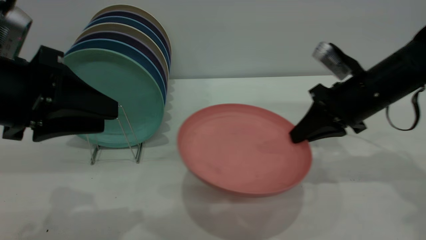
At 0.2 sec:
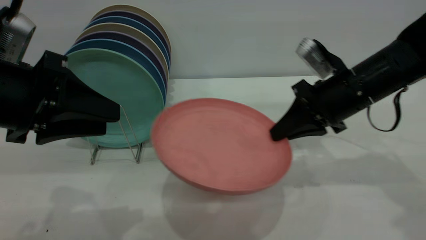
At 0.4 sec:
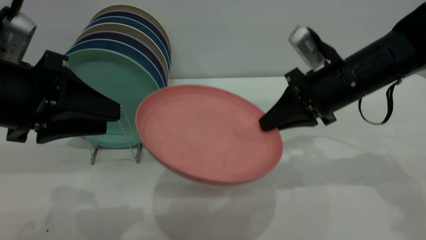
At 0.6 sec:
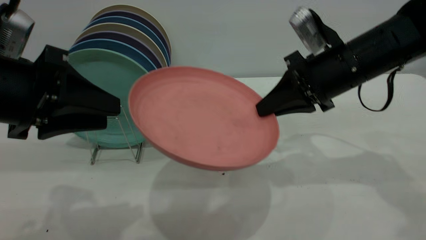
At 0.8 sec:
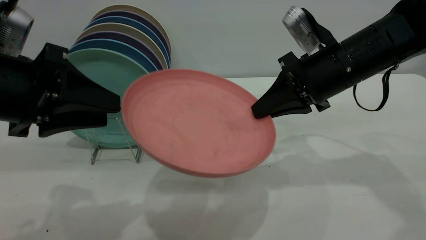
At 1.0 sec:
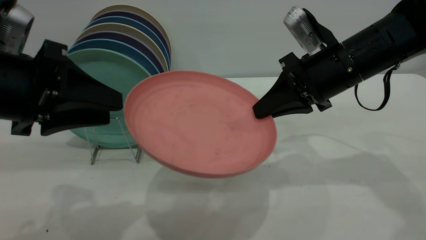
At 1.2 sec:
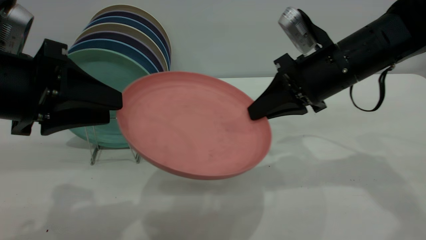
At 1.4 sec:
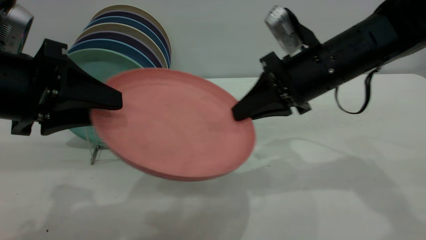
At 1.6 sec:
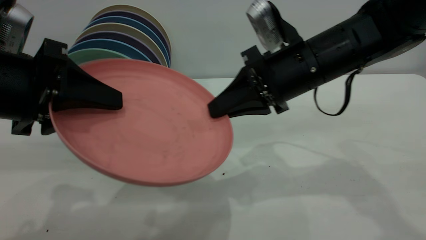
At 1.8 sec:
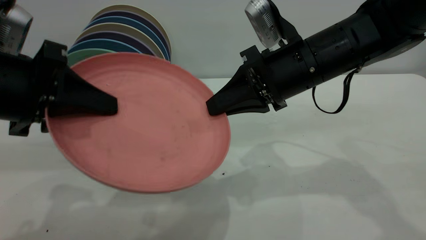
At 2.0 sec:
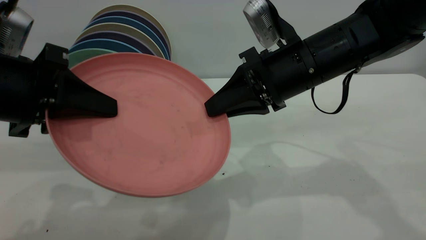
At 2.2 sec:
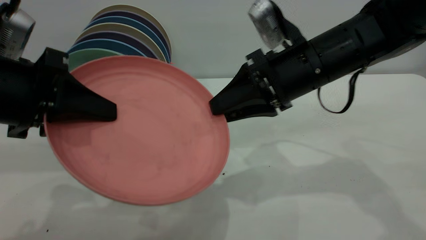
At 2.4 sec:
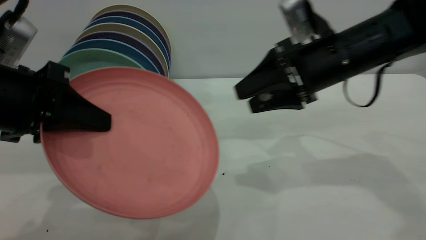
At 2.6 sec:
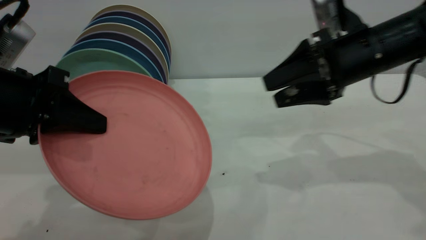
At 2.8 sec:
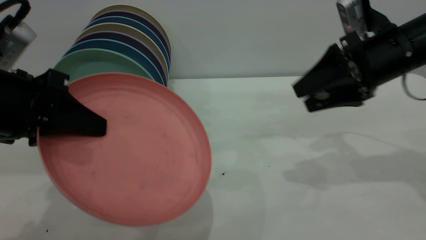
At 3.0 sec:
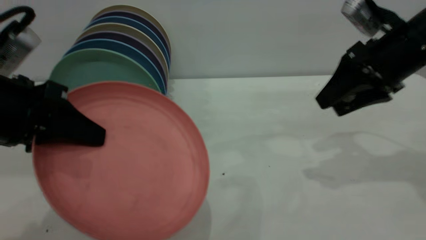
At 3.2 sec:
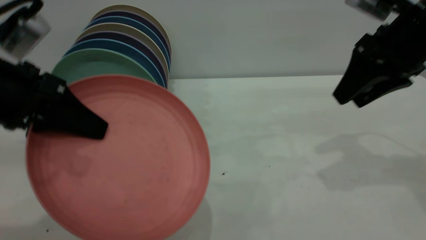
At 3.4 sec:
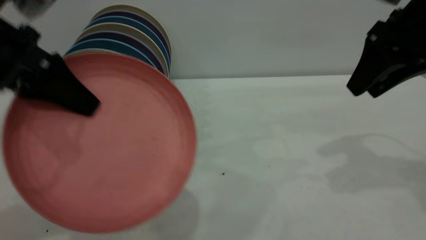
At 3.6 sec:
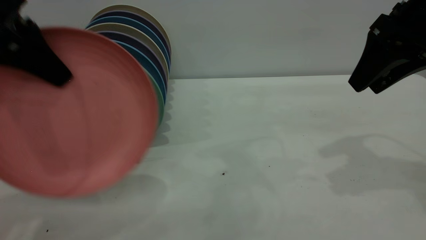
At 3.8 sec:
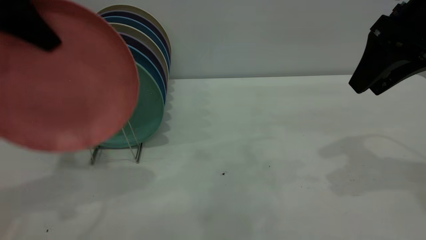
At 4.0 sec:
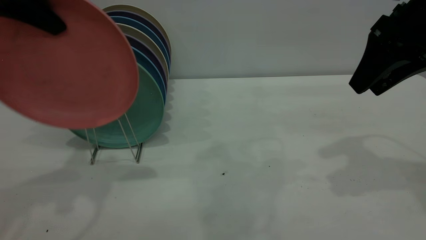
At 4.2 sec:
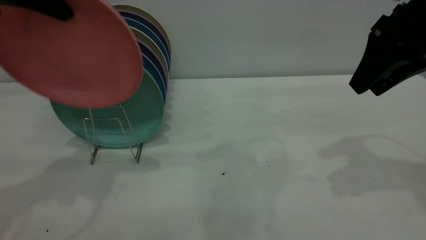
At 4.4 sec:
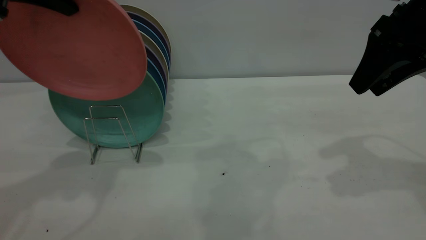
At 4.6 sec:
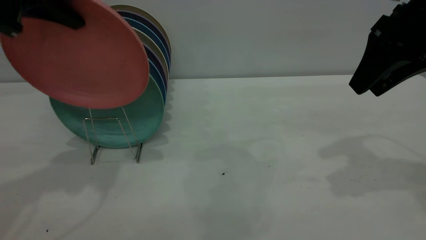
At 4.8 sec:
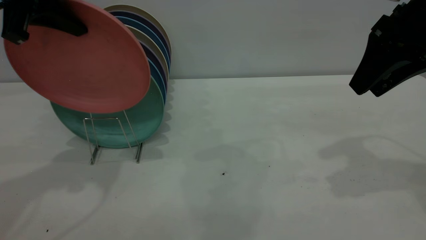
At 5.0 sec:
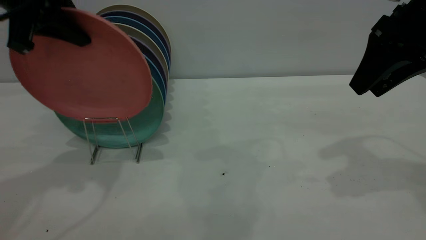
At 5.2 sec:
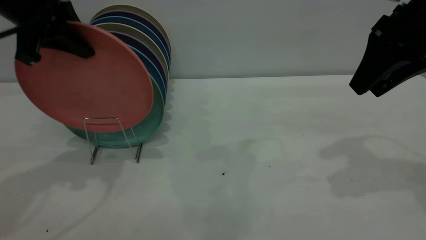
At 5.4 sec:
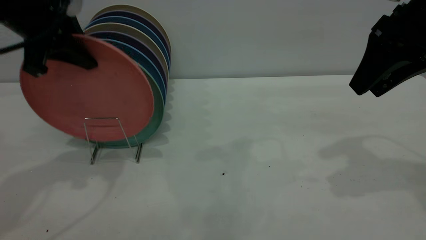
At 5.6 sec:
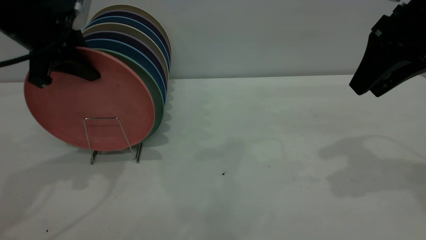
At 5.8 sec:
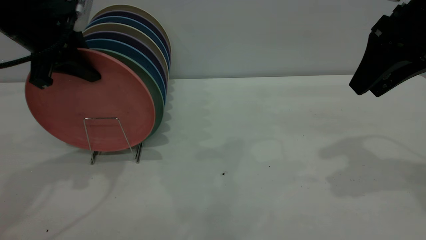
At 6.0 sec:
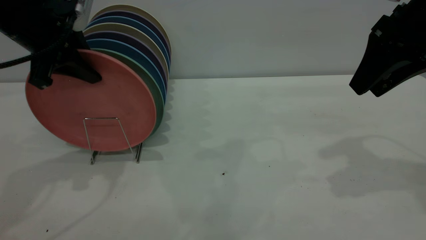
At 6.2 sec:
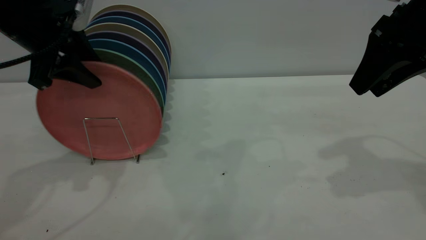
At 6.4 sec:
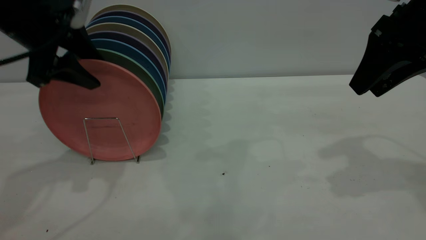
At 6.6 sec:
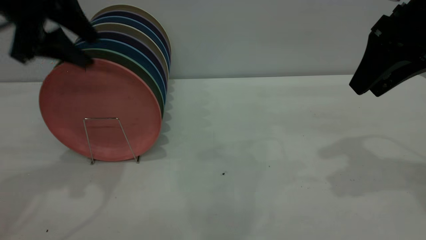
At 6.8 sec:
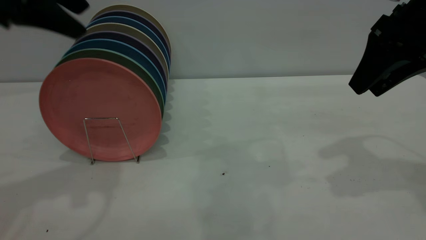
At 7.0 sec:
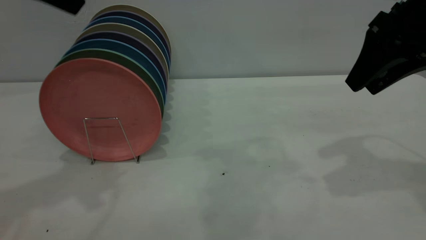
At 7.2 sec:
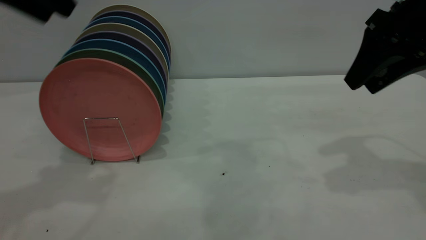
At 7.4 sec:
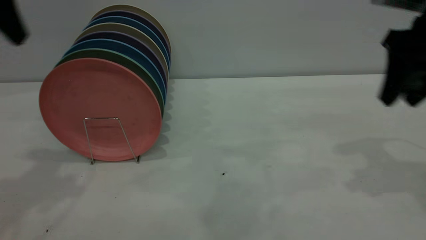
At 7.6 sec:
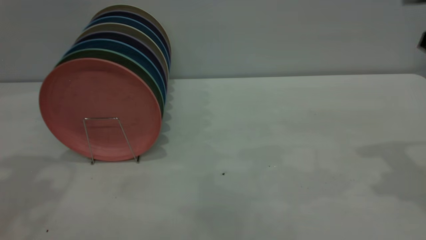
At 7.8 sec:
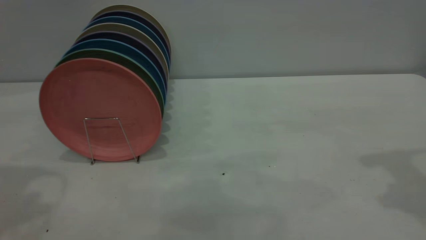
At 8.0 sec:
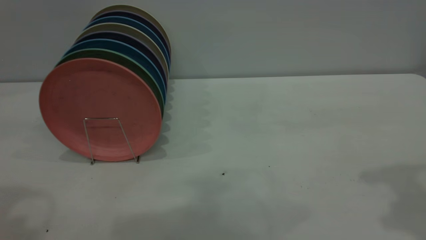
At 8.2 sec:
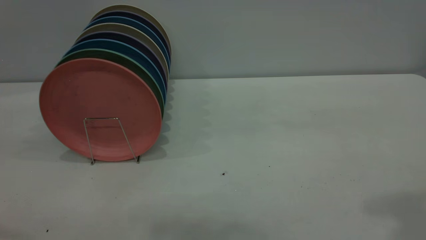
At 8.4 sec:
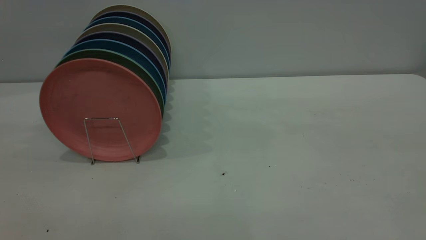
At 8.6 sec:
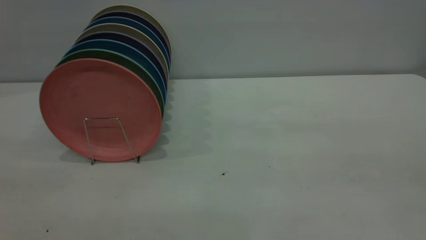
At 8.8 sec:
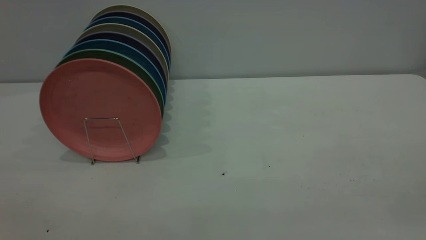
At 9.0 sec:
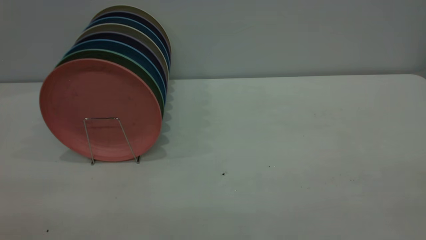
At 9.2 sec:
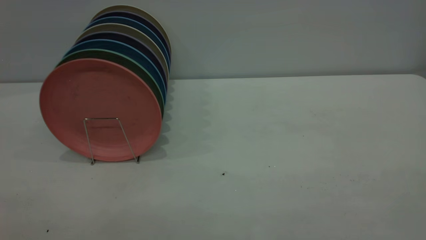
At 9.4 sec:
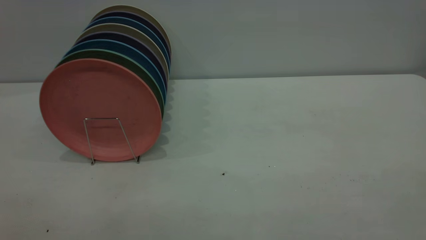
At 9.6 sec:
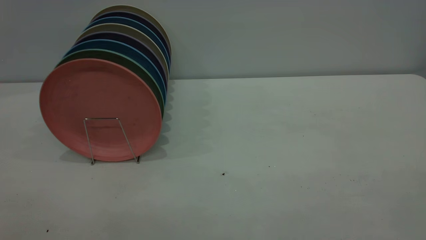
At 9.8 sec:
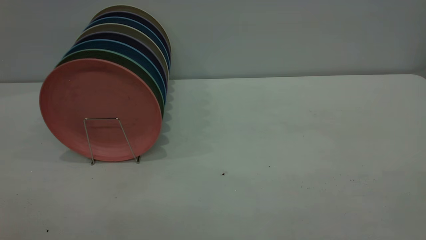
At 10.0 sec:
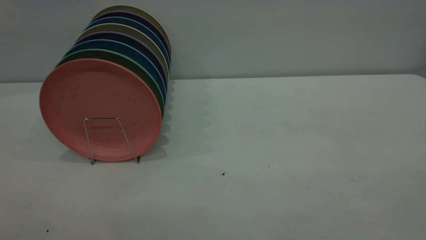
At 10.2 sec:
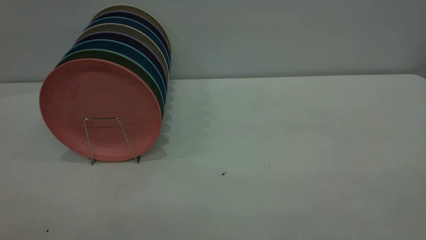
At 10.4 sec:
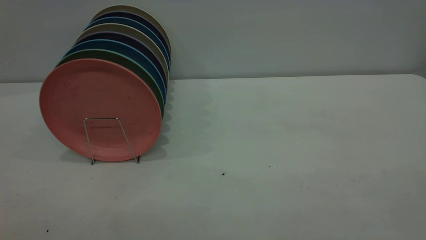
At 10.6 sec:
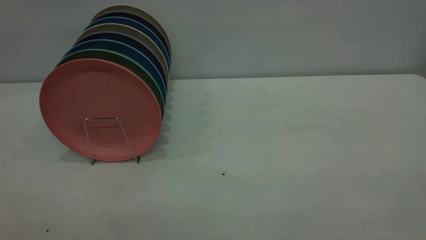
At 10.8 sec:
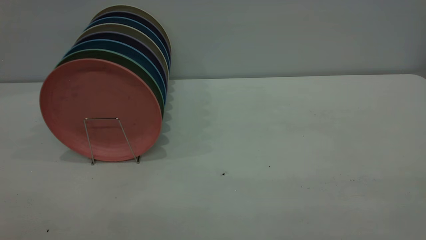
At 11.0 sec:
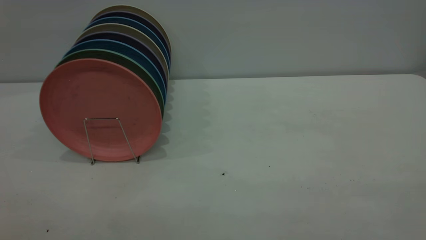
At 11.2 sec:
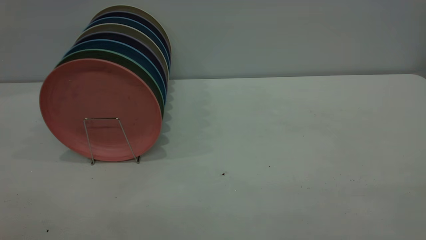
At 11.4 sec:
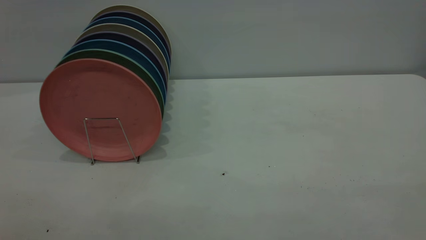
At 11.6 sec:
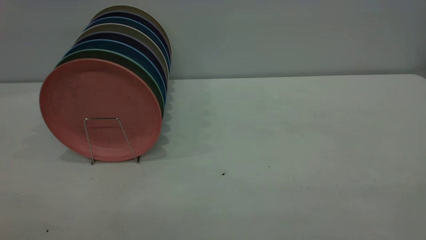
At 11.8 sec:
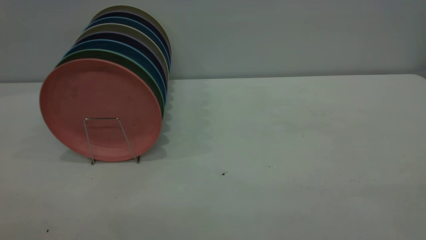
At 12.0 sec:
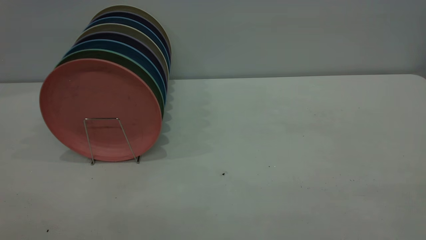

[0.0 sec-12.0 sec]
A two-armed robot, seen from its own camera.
Task of the whole recording: the right gripper grasp the pink plate, the right gripper pass the pink plate to the left gripper, and the left gripper place the pink plate on the plate rack.
Step, 0.0 sec to 4.0 sec: Pass the plate from the right gripper to the left gripper.
Step, 4.2 sec to 7.4 sec: Place the plate on the shelf.
0.0 sec to 1.6 sec: The right gripper shifts approximately 10 cm to the left and upward.
1.6 sec to 3.0 sec: The right gripper shifts some 15 cm to the right, and opens its fingers, while the left gripper closes.
3.0 sec to 4.4 sec: The right gripper moves upward, about 5 cm. Meanwhile the left gripper goes approximately 20 cm upward and forward.
4.4 sec to 6.0 sec: The left gripper heads downward, covering about 10 cm.
6.0 sec to 7.6 sec: The left gripper moves upward and backward, some 15 cm, and opens.
